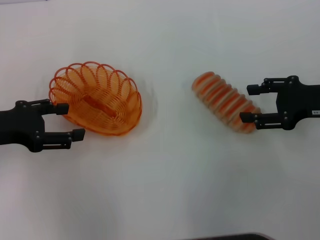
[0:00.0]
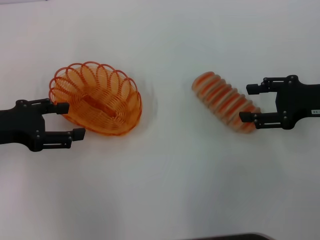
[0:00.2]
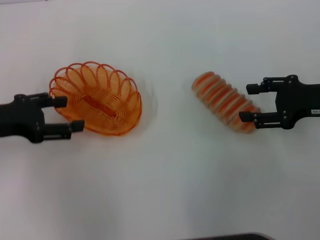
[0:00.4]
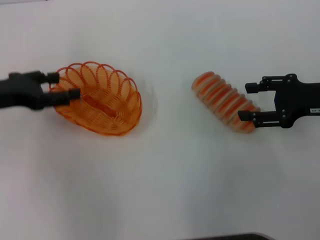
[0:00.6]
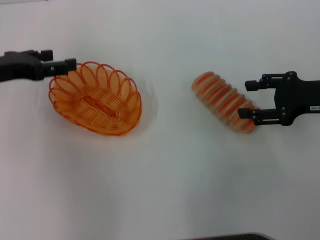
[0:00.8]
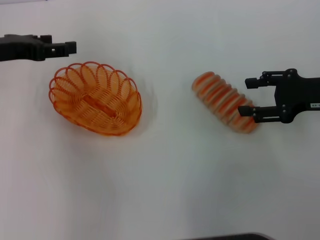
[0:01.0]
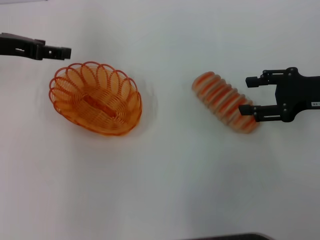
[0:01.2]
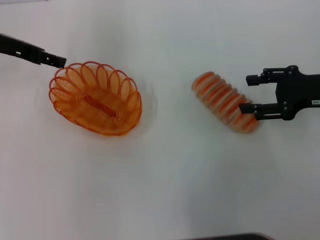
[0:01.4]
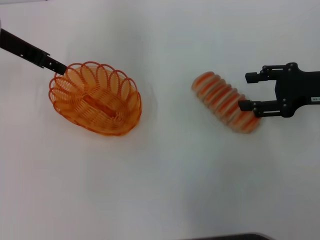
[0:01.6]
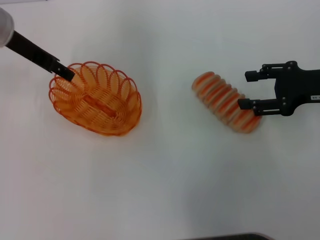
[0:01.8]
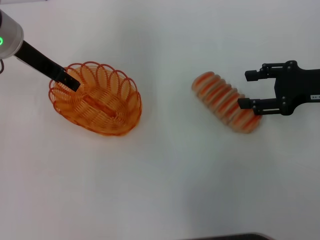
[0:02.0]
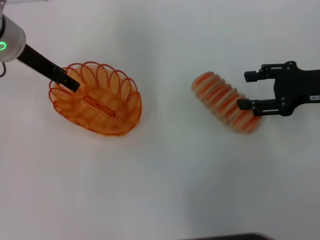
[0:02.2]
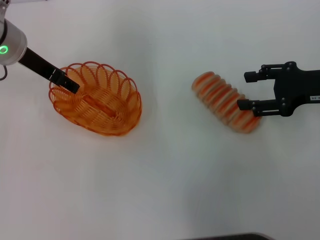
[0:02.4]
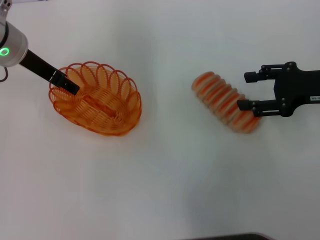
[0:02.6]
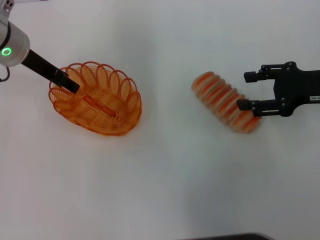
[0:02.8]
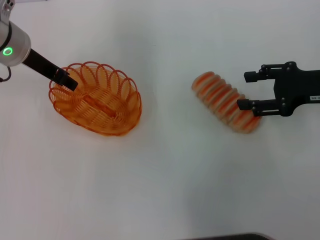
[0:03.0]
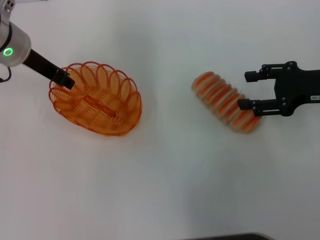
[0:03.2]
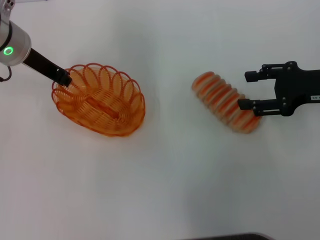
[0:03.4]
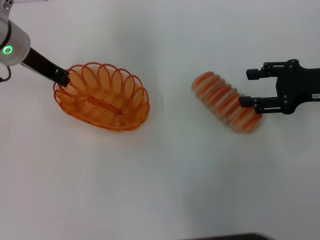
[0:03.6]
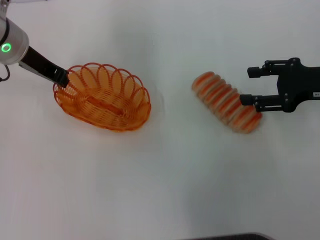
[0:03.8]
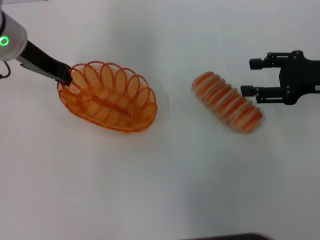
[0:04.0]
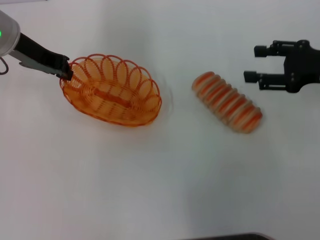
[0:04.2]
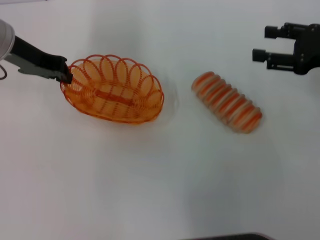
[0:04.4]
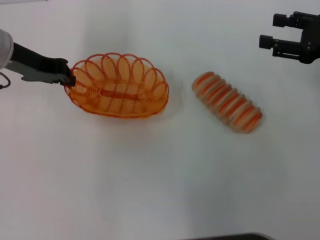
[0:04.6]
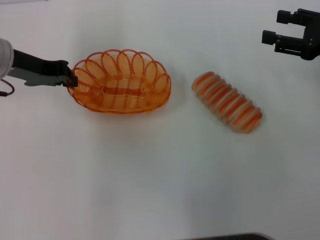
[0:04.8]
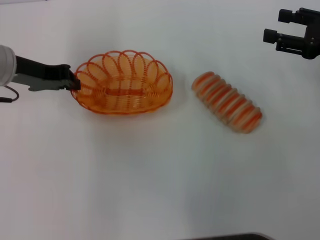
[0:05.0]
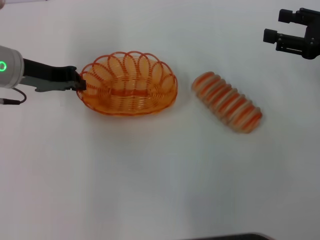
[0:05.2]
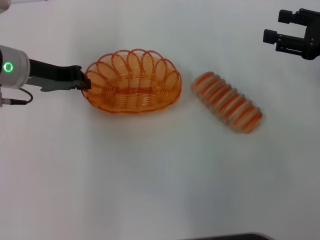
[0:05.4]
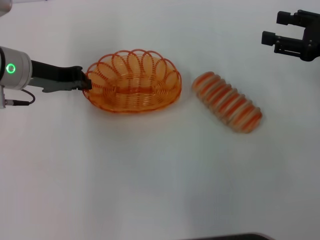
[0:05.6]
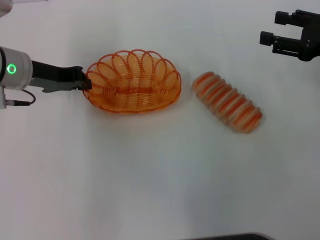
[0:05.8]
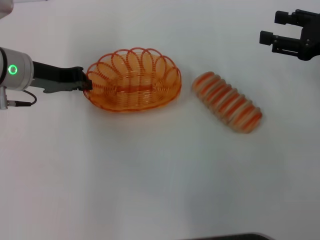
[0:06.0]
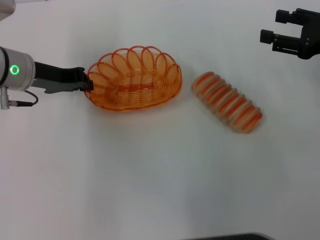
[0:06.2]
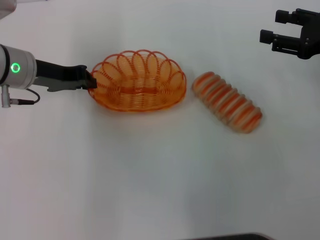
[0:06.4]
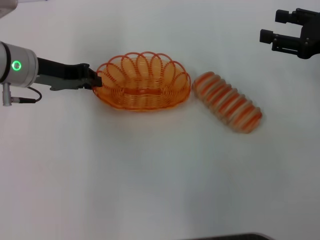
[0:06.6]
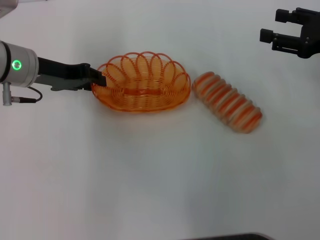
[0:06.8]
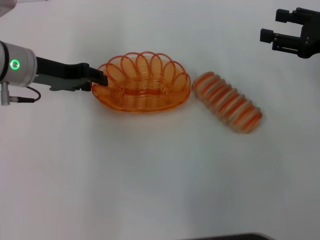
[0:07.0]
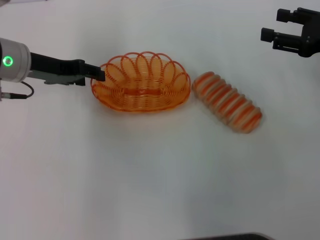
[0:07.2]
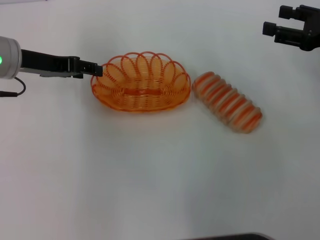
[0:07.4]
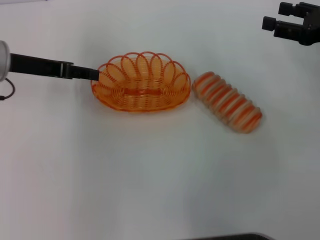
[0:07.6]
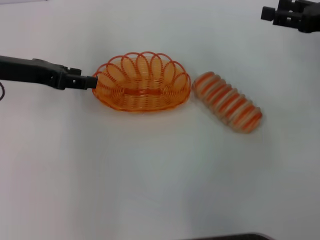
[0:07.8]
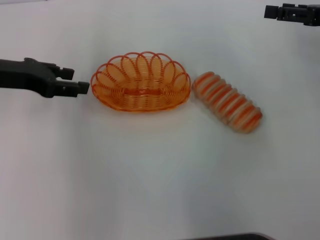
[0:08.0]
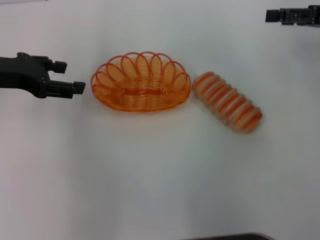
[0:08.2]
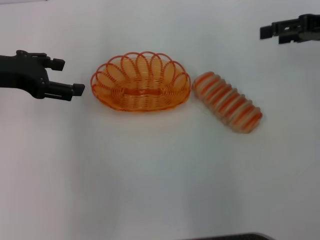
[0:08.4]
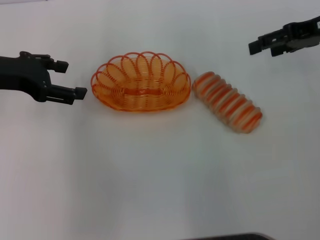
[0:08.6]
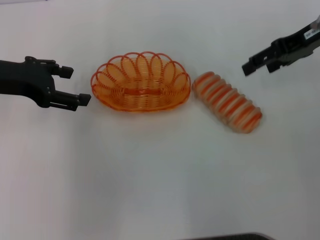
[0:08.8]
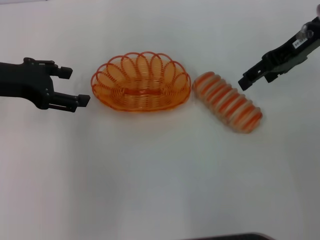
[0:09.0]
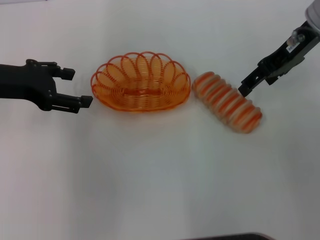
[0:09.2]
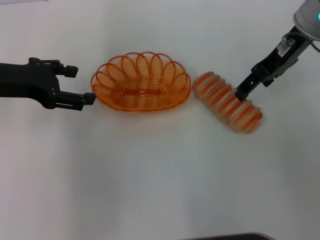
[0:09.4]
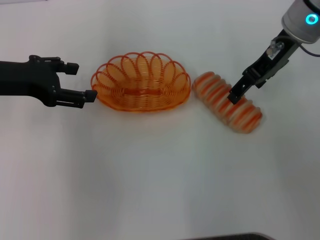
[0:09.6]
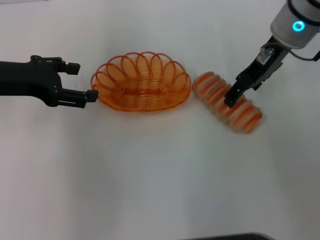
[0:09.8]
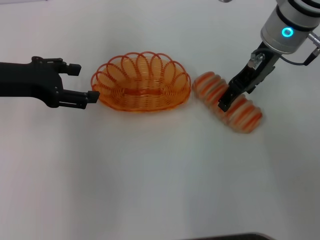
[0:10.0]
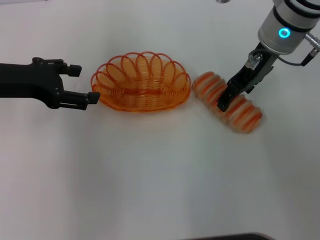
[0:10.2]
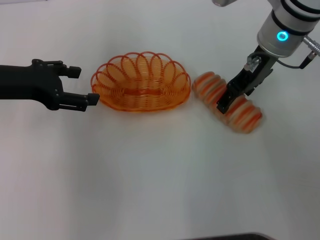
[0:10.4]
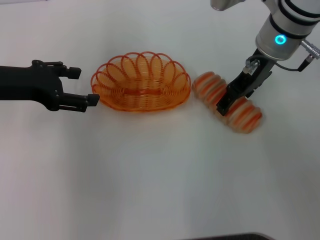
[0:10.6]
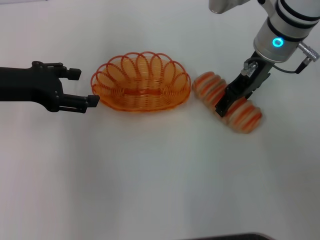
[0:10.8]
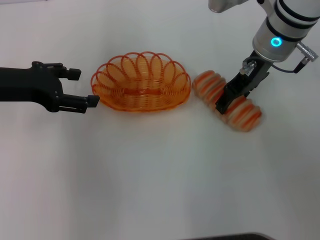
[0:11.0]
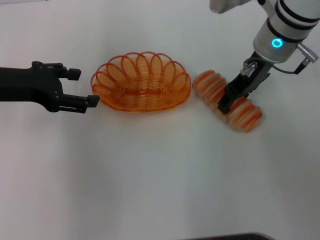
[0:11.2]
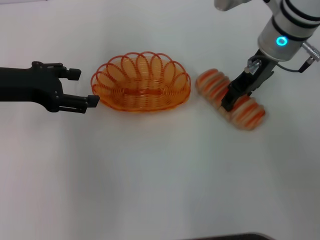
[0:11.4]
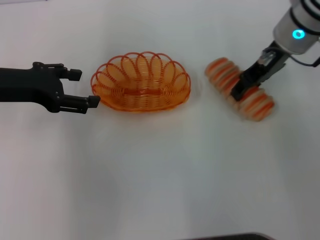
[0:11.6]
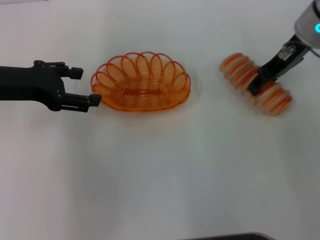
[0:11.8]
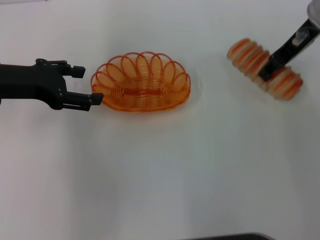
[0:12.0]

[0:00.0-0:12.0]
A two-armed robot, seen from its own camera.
Step, 0:00.0 to 0:04.0: Pick up the basket with the left gripper.
Step, 0:04.2 to 0:07.6: Place the basket in the center of view with the left gripper.
Step, 0:07.8 to 0:11.4: Pick up the long bread with the right gripper.
0:00.0 to 0:01.6: The left gripper heads forward, upward and to the right, covering some 15 cm.
0:01.6 to 0:03.0: There are only small adjustments of the grippers.
0:03.0 to 0:04.4: The left gripper closes its fingers.
0:04.4 to 0:06.0: The left gripper shifts about 5 cm downward.
0:06.0 to 0:07.6: The left gripper opens.
0:07.6 to 0:09.0: The right gripper shifts about 10 cm to the left, forward and upward.
0:09.0 to 0:10.4: The right gripper travels to the left by some 10 cm.
0:10.4 to 0:12.0: The right gripper travels to the right by approximately 5 cm, and closes up.

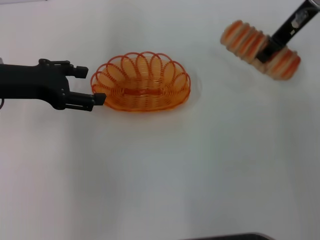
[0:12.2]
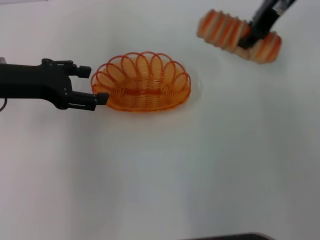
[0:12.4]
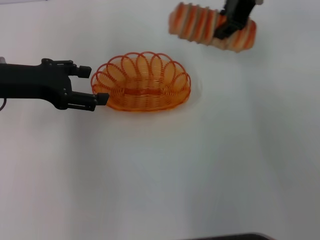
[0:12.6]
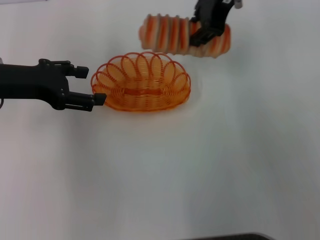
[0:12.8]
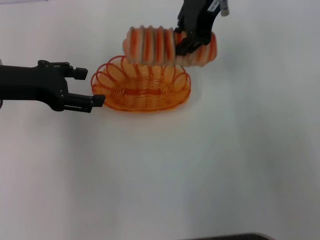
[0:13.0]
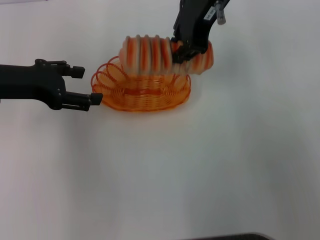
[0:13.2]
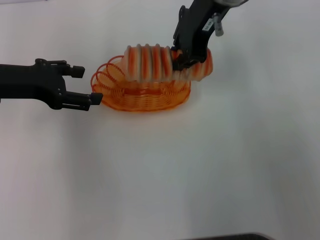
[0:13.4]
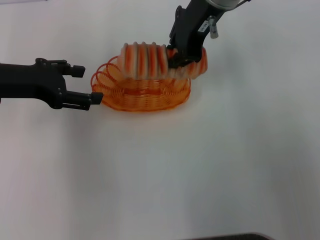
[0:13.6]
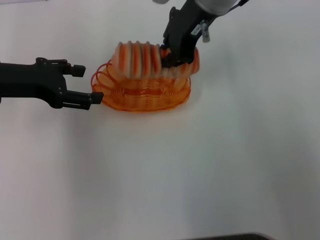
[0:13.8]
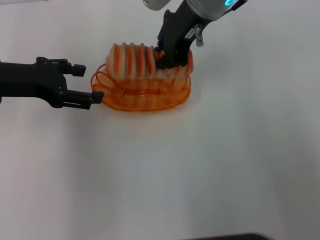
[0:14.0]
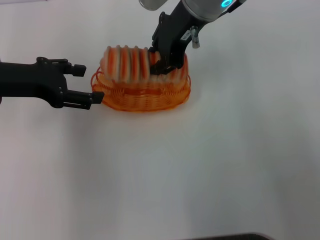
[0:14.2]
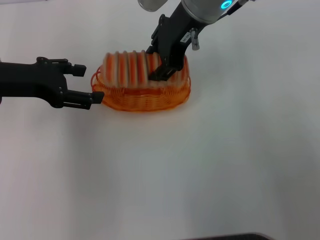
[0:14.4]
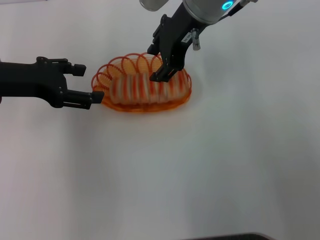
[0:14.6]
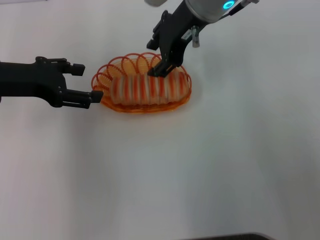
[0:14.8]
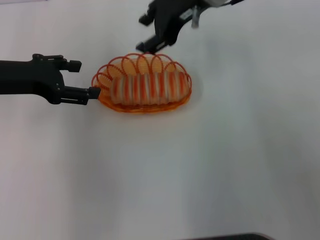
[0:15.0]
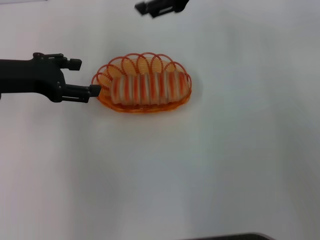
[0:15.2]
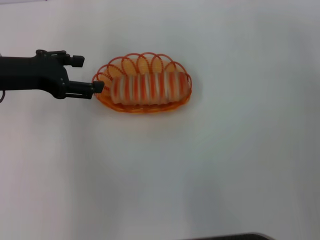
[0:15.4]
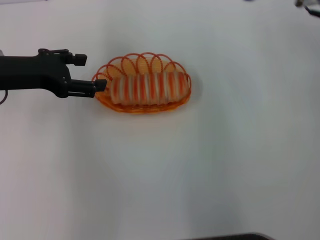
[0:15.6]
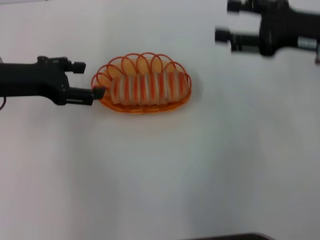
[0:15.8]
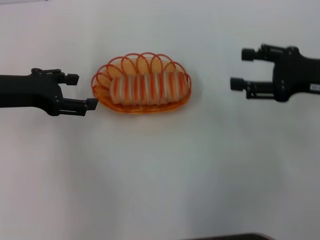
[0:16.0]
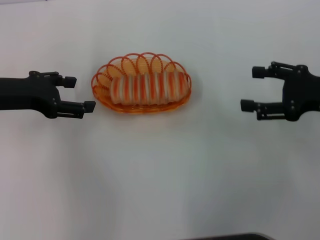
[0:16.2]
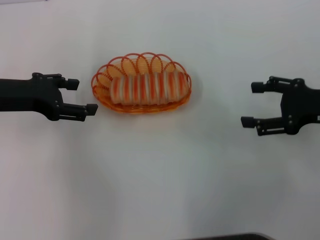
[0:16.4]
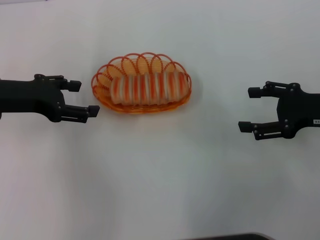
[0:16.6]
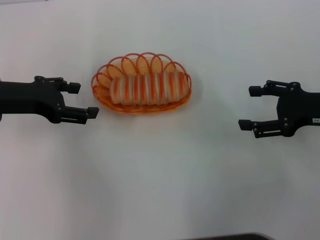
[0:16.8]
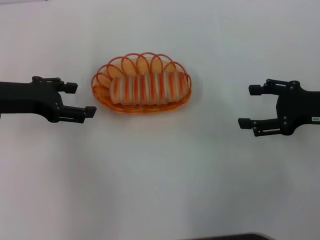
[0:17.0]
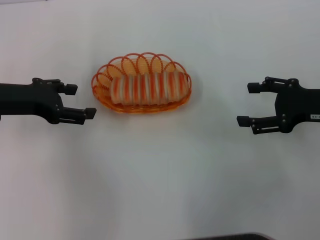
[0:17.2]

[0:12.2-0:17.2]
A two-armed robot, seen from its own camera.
Step, 0:12.2 to 0:14.6: Place the long bread into the basket with the right gripper.
0:12.2 to 0:13.8: The right gripper shifts about 15 cm to the left, and closes its fingers.
0:13.8 to 0:15.6: The right gripper heads to the right, covering some 15 cm, and opens its fingers.
0:15.6 to 0:17.2: The right gripper heads downward, backward and to the right, covering some 15 cm.

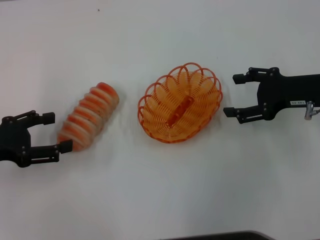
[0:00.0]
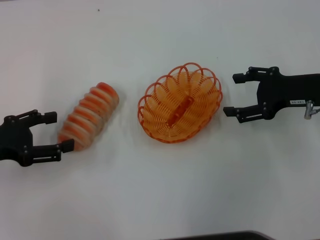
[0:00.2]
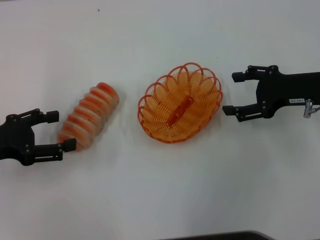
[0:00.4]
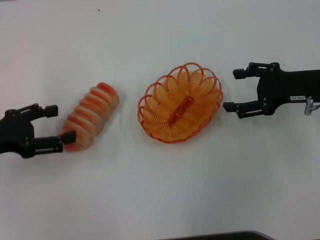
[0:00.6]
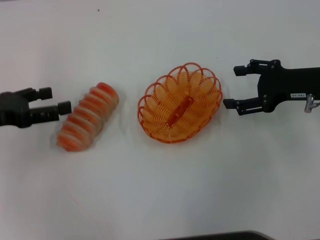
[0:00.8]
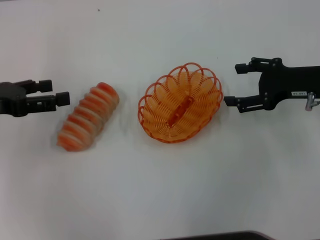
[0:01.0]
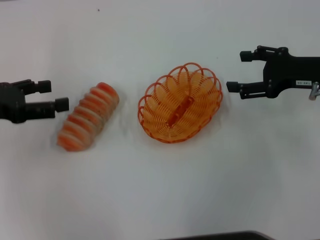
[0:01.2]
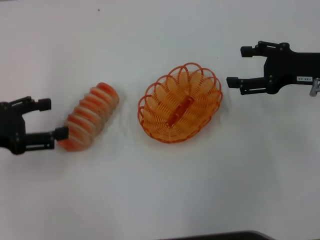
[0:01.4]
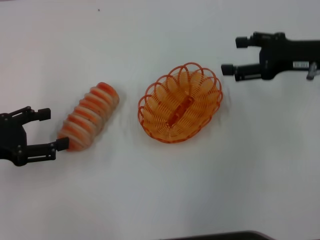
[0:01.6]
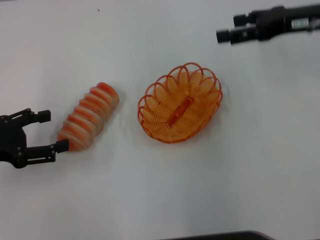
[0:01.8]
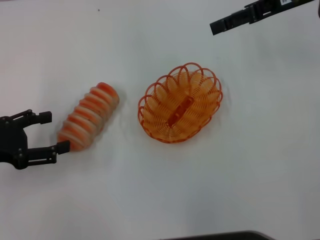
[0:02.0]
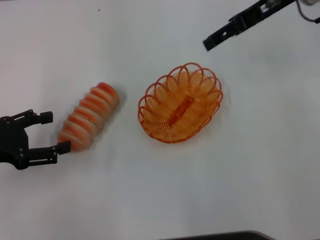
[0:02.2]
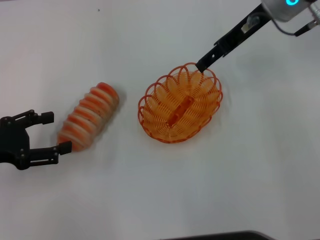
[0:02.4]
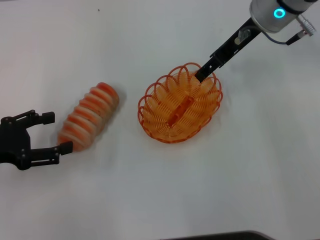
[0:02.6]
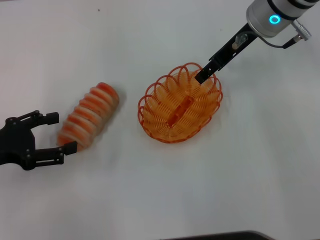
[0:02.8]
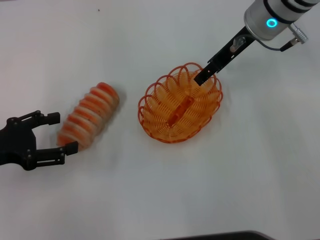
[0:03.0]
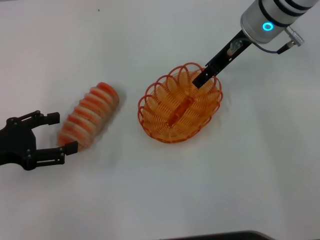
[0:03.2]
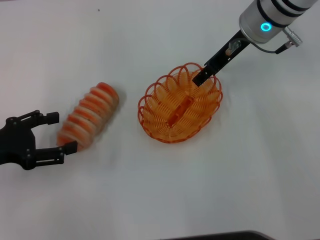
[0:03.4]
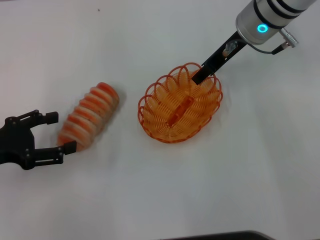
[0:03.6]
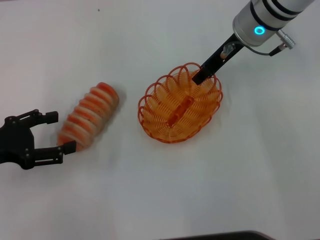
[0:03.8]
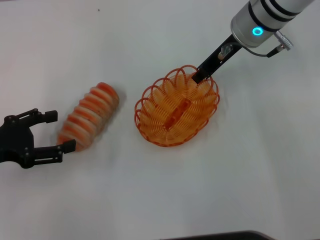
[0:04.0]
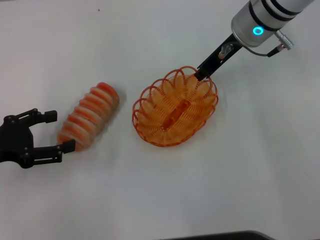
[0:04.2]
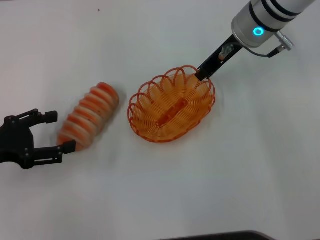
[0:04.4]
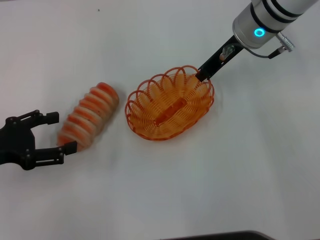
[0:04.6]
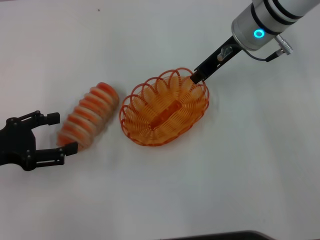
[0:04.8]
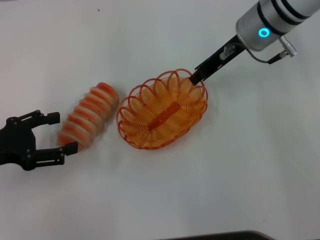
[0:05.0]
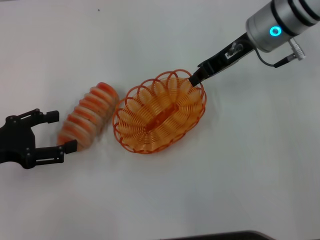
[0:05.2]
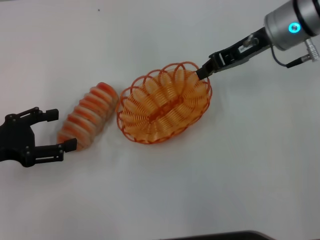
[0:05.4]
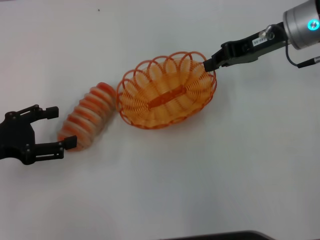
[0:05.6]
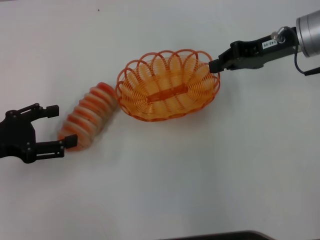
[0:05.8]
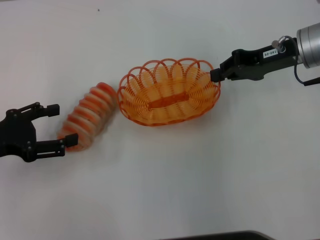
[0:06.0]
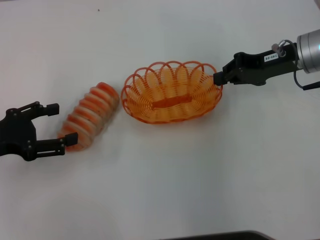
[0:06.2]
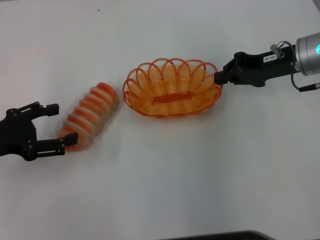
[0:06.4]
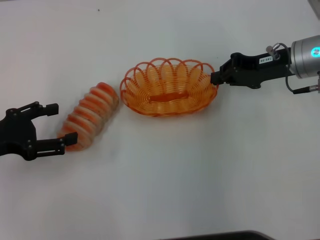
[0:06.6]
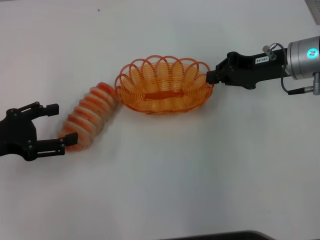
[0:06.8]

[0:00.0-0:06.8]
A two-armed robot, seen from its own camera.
Step, 0:00.0 to 0:05.8: Pick up the basket with the right gripper.
0:00.0 to 0:01.4: The grippers stay close to where they were, moving slightly.
0:01.4 to 0:02.8: The right gripper travels to the left, forward and upward by some 15 cm.
0:02.8 to 0:04.0: The right gripper closes its fingers.
0:04.0 to 0:05.4: The right gripper heads to the right, covering approximately 5 cm, and closes up.
0:05.4 to 0:06.8: The right gripper goes roughly 5 cm downward.
